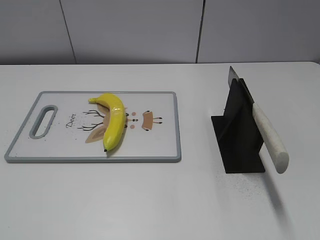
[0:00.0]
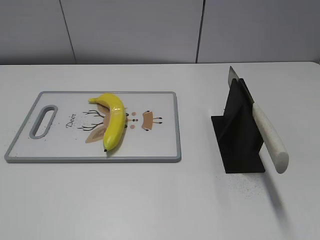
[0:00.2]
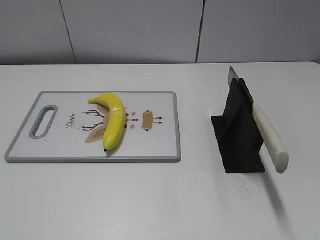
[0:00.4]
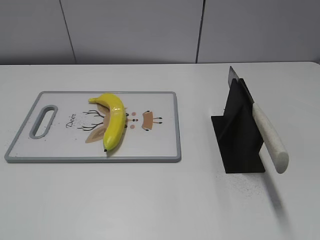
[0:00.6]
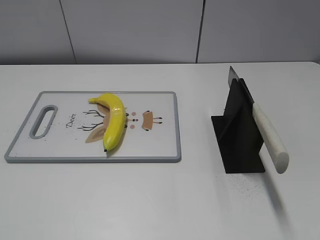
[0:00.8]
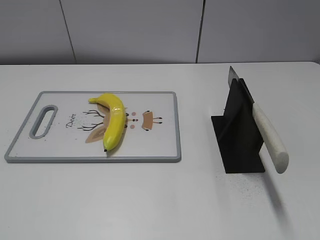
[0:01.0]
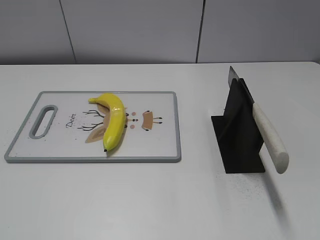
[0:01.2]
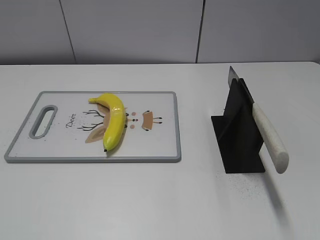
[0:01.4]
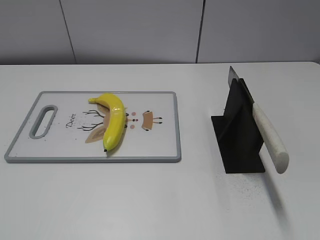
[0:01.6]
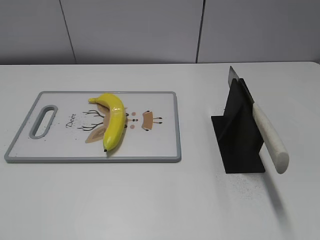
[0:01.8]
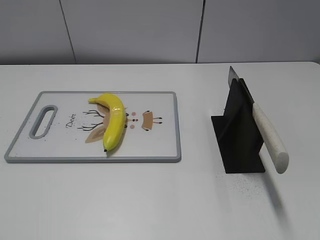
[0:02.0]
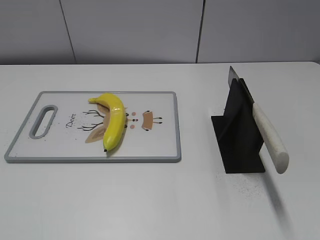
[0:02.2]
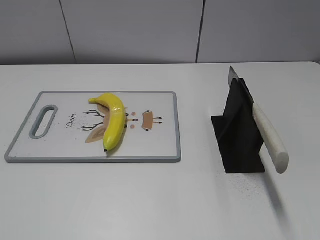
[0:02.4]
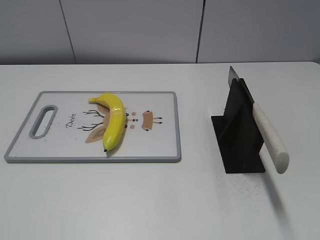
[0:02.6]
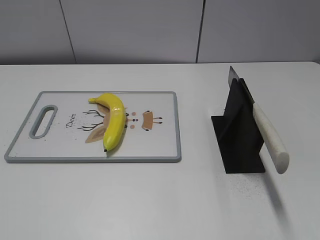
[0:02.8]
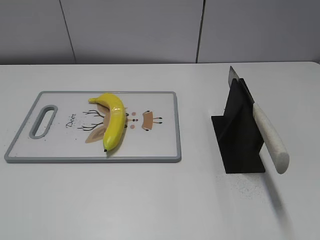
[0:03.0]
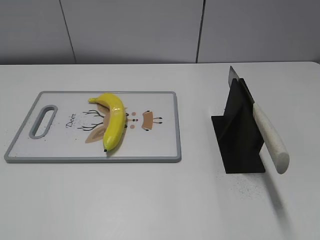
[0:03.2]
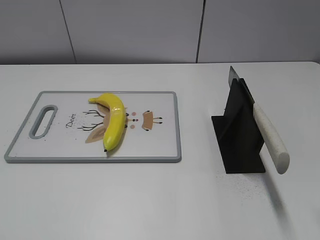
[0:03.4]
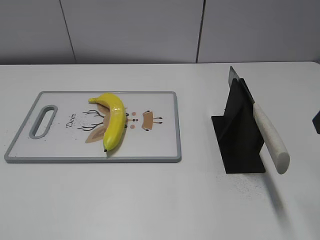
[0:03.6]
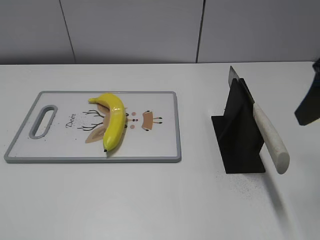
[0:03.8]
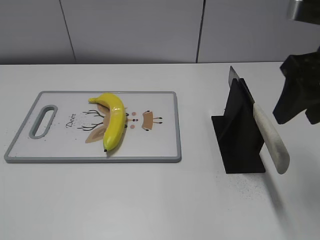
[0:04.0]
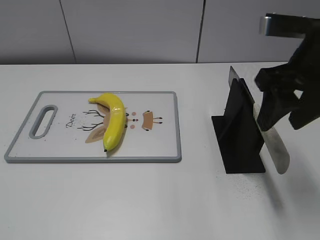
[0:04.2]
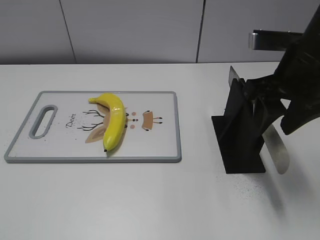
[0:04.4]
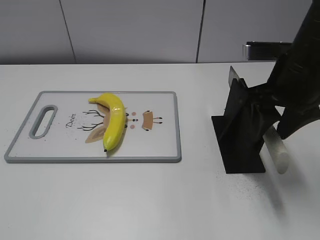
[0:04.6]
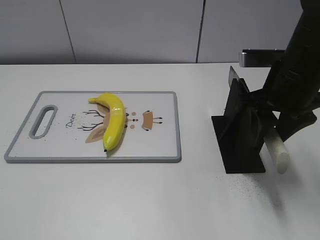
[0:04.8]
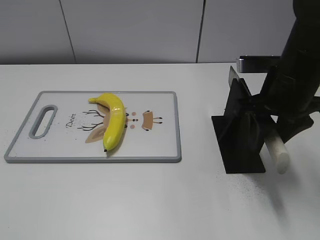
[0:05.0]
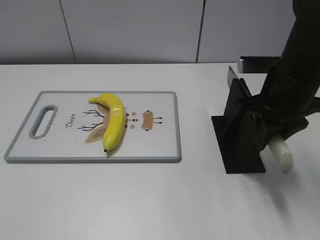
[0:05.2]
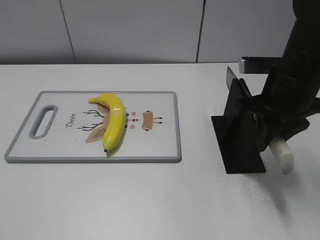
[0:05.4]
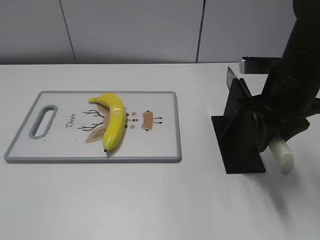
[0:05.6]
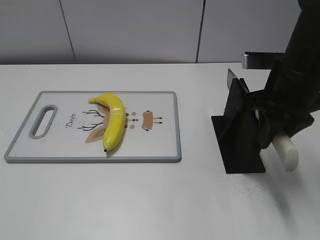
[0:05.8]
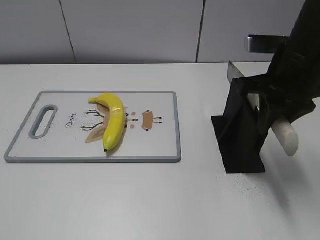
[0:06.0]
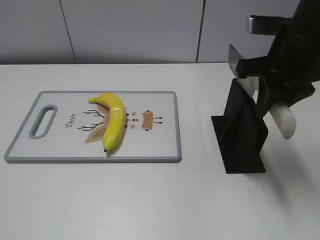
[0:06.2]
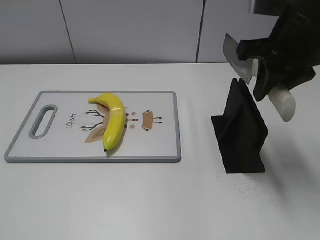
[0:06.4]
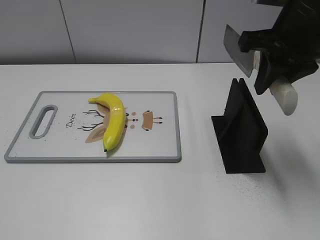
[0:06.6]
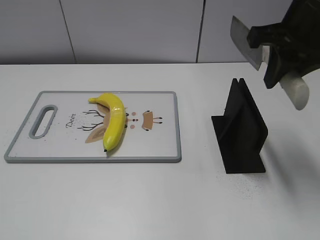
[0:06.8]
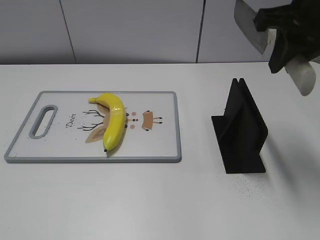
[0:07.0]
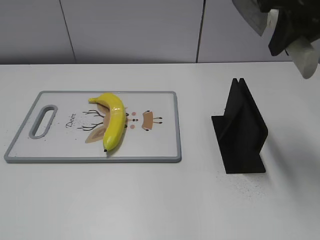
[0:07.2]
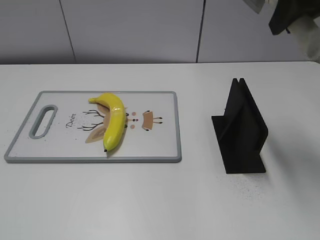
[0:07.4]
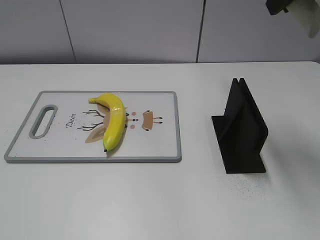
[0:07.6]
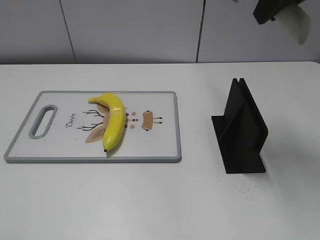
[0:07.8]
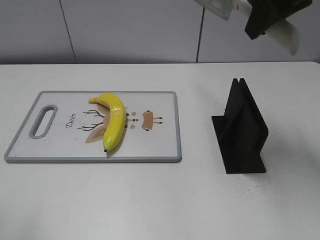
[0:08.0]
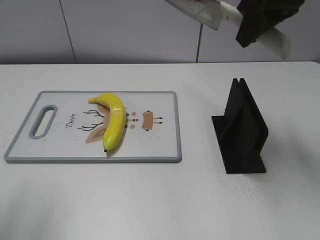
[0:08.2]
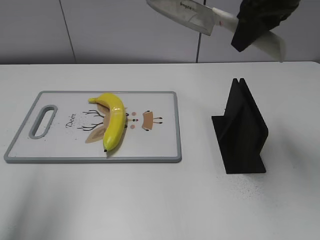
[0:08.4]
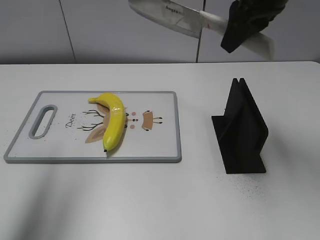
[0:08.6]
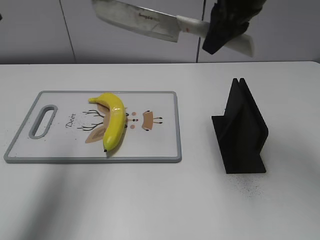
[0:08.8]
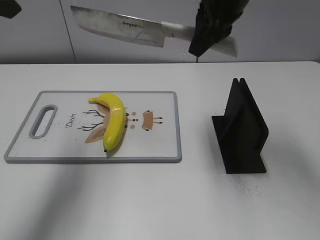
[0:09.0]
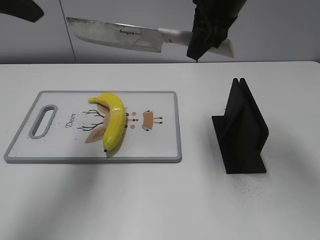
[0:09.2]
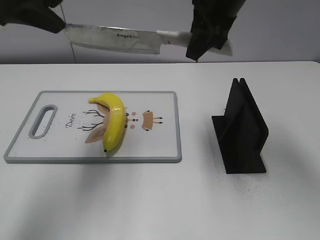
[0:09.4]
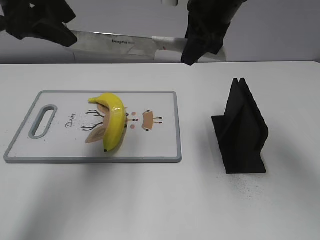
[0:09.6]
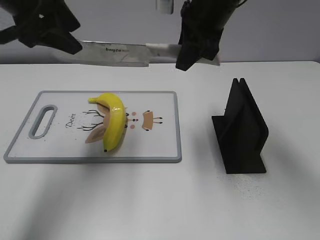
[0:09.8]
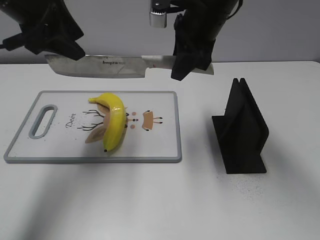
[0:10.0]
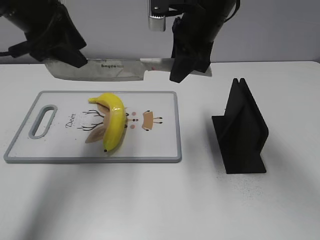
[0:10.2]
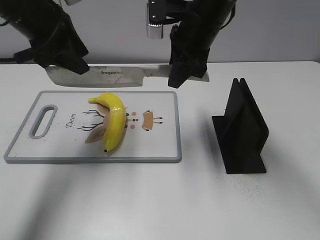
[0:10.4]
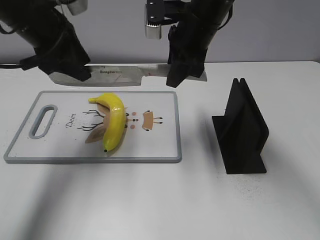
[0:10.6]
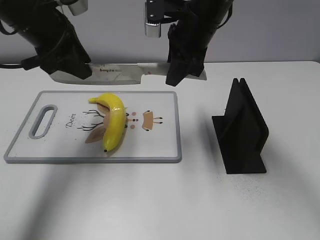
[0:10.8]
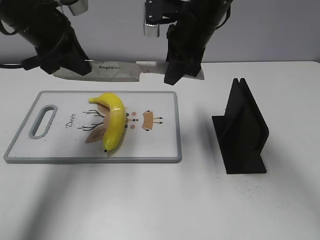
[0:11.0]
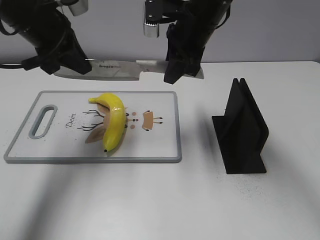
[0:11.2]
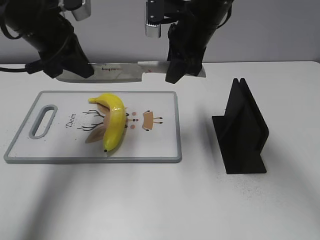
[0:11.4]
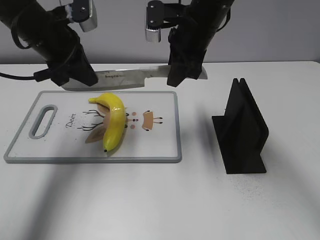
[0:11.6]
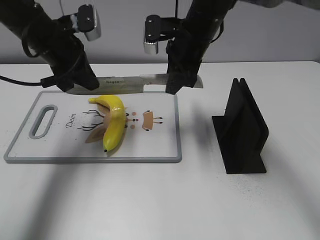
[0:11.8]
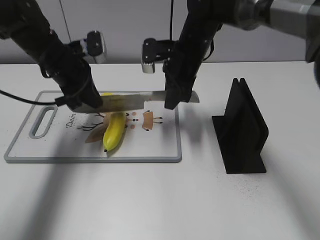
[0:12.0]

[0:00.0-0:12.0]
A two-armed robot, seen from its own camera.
Task of the whole recording: cut plastic banana.
Step, 0:00.0 to 0:06.6: Grab the knife handle with your right hand.
0:03.0 to 0:04.4: The right gripper shifts roughly 20 cm forward and to the left, and closes.
0:04.4 to 0:06.0: The right gripper closes up.
0:06.0 to 0:07.6: The right gripper moves upward, some 15 cm.
0:07.6 to 0:09.0: The left gripper moves forward, roughly 25 cm. Meanwhile the right gripper moves to the left, downward and forward, some 15 cm.
0:09.0 to 0:10.4: The left gripper shifts approximately 15 cm downward and forward. Meanwhile the right gripper travels downward by roughly 5 cm.
0:10.4 to 0:12.0: The two grippers go about 10 cm downward. The left gripper closes.

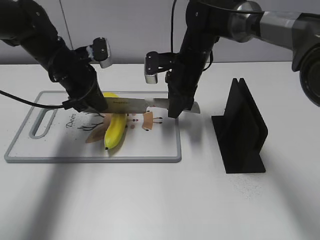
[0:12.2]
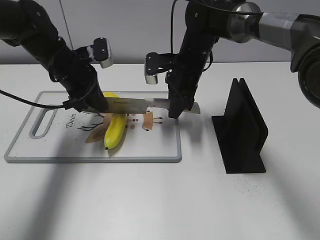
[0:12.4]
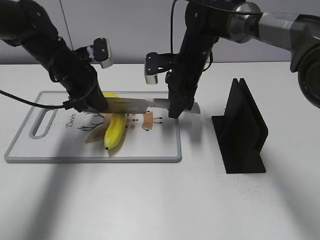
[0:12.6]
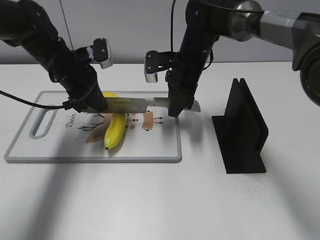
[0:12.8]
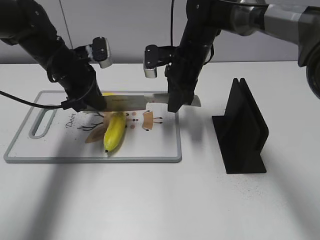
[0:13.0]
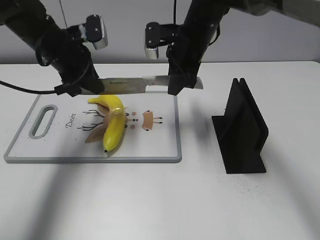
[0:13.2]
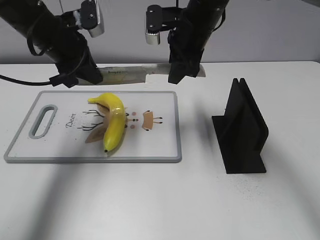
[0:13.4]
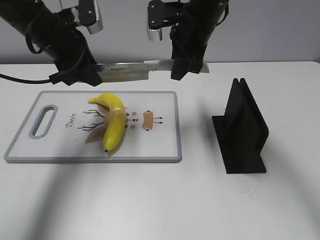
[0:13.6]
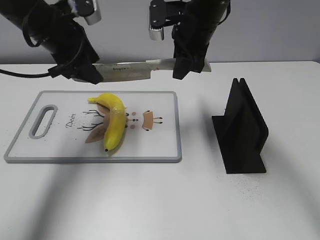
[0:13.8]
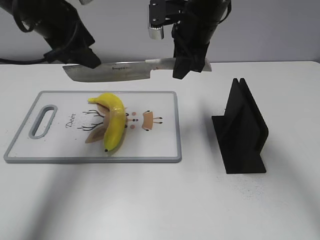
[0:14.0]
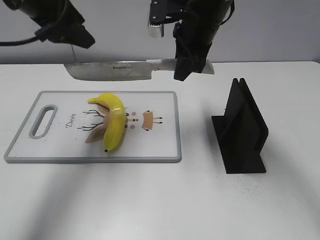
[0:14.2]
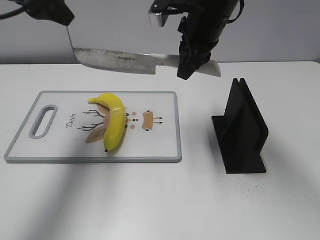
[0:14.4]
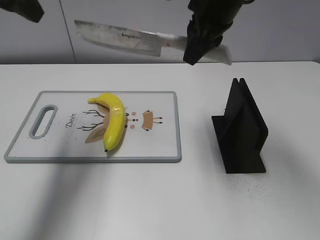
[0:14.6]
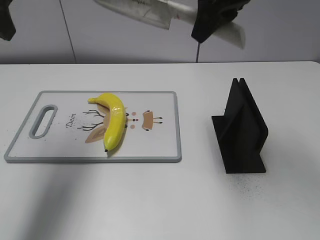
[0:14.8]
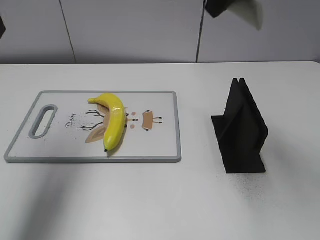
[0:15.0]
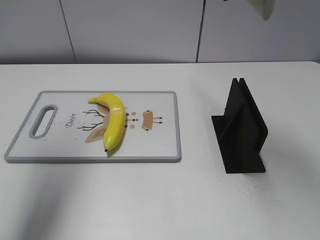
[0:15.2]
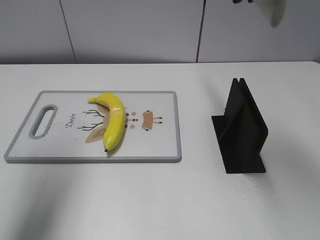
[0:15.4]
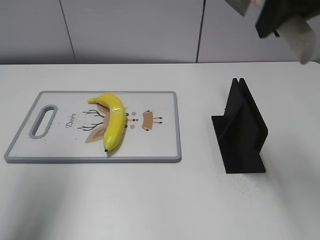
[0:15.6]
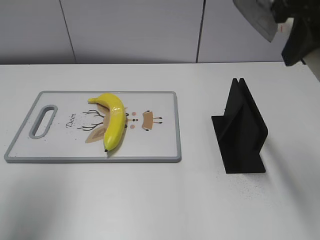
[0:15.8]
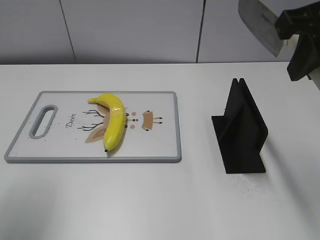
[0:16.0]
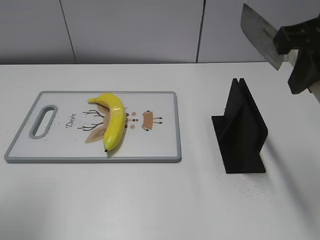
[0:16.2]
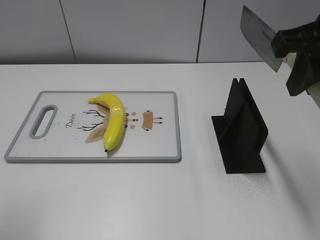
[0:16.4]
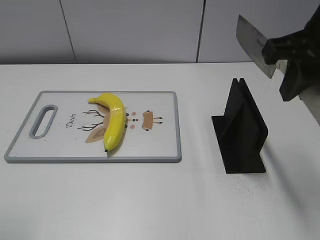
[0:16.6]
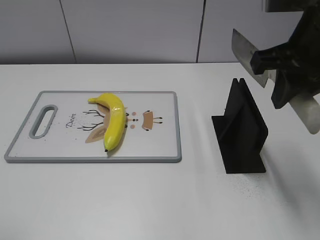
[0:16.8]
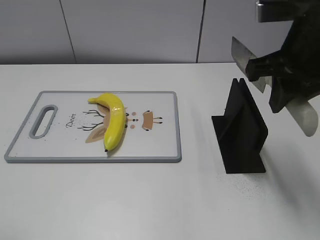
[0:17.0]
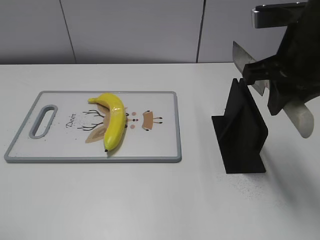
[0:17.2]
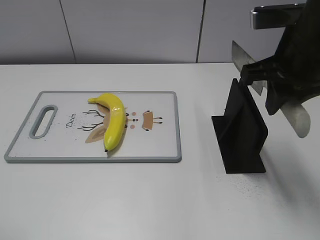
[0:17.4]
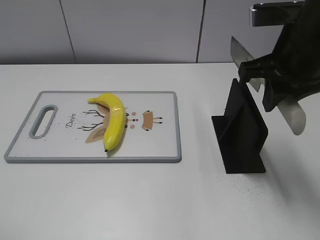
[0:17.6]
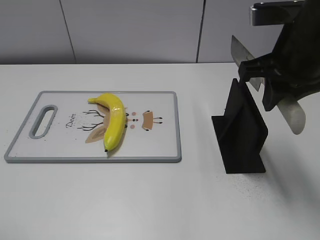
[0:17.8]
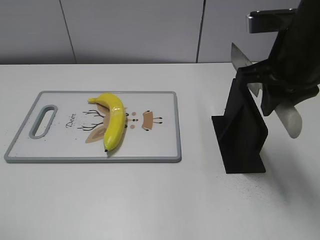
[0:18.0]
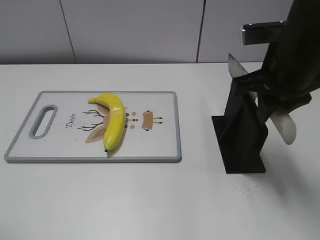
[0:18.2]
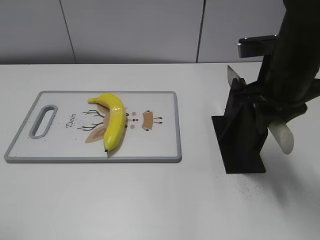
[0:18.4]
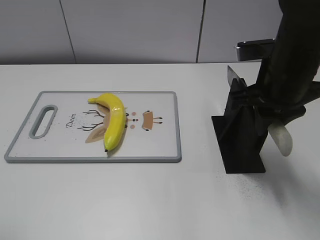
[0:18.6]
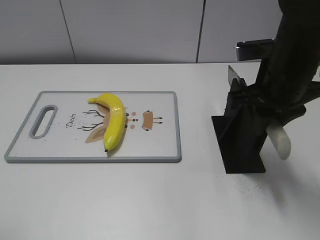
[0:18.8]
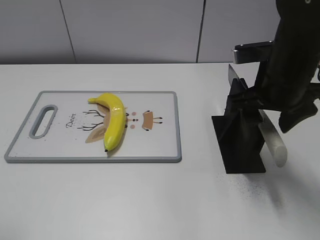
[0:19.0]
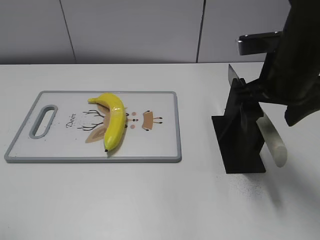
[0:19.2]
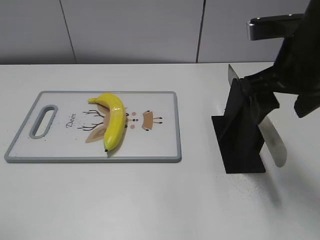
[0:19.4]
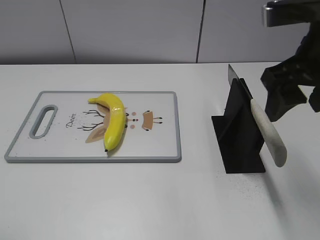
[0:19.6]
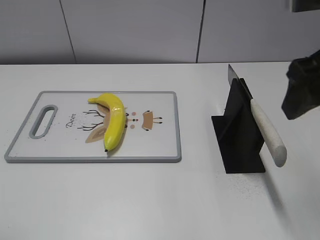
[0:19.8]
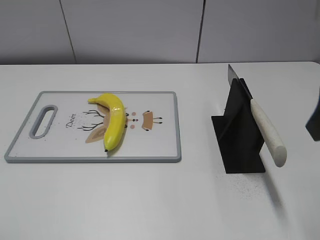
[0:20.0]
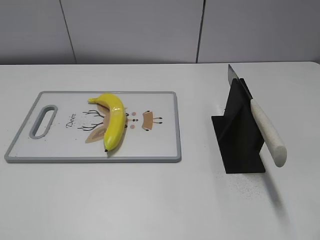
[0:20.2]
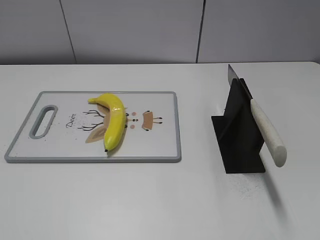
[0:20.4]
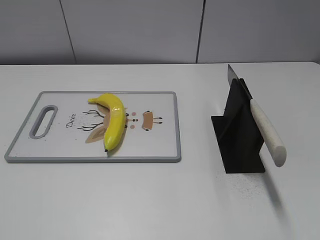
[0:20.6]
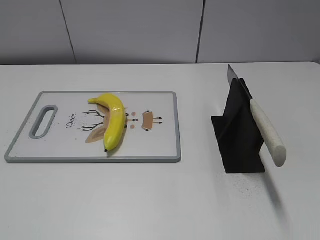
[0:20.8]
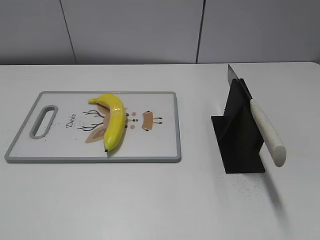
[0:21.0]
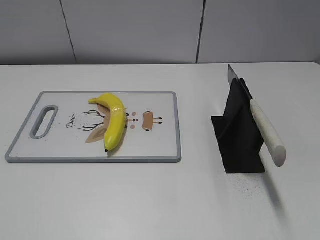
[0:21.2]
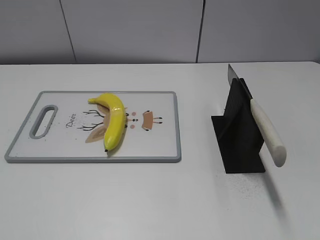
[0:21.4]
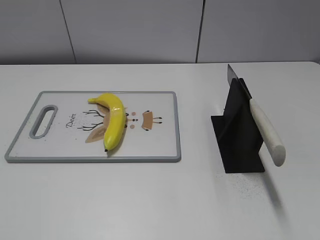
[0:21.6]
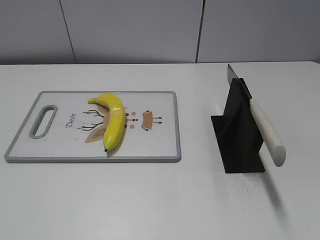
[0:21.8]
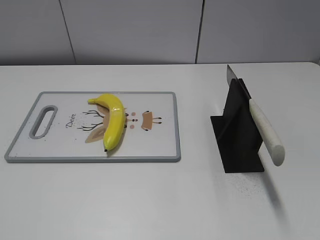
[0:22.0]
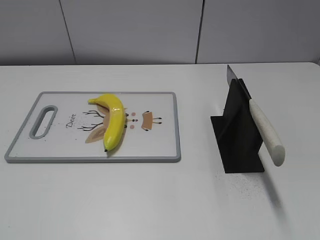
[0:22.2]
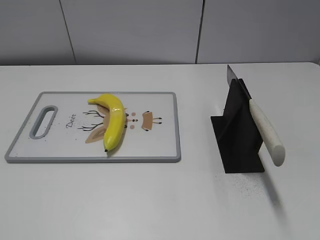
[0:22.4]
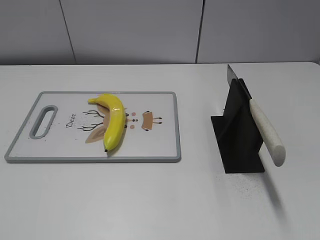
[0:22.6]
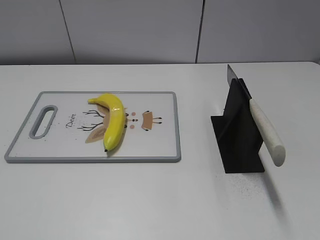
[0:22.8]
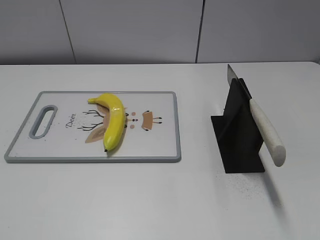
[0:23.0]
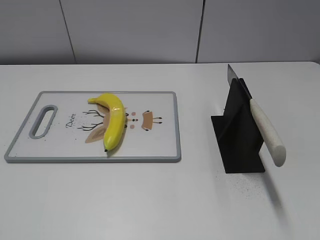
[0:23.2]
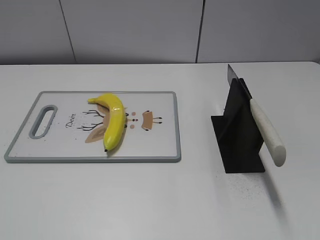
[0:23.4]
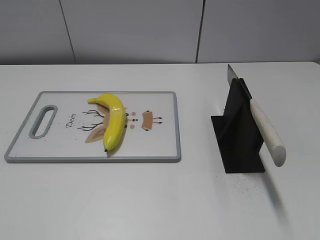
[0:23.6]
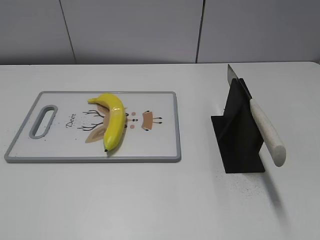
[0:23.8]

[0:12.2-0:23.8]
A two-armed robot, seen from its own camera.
Task of the whole recording: cut plastic banana.
Step, 0:14.2 to 0:15.4: Cut the banana with your right hand.
Step, 0:15.6 to 0:17.0: Lift the knife with your right hand.
Step, 0:17.2 to 0:23.6: Place the knife on the storage rack with your right hand.
0:12.2 to 0:13.6: Both grippers travel together upward, about 10 cm. The left gripper opens its fingers.
0:13.6 to 0:15.0: The left gripper travels upward, backward and to the left by some 20 cm, and opens. The right gripper goes some 20 cm upward and backward.
0:15.0 to 0:16.6: The right gripper shifts about 10 cm backward, to the right and downward; the left gripper heads backward, covering about 20 cm.
0:16.6 to 0:18.0: The right gripper travels downward by roughly 5 cm.
0:18.0 to 0:19.4: The right gripper opens.
0:19.4 to 0:21.0: The right gripper shifts about 25 cm backward and to the right.
